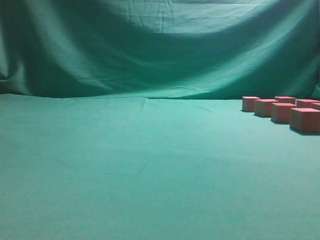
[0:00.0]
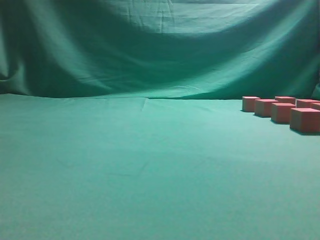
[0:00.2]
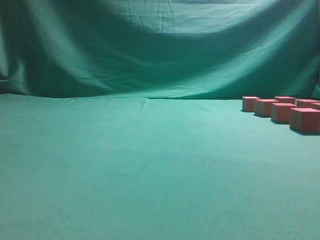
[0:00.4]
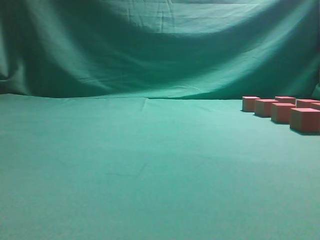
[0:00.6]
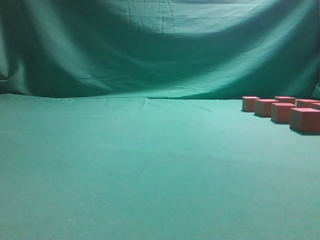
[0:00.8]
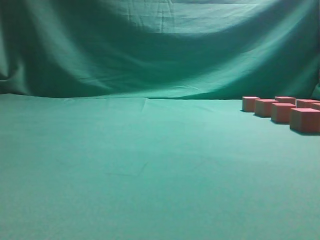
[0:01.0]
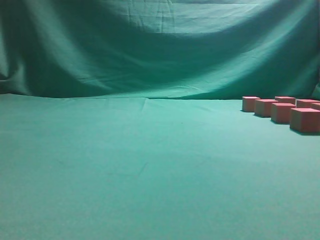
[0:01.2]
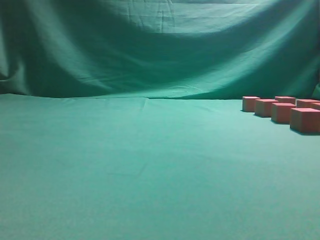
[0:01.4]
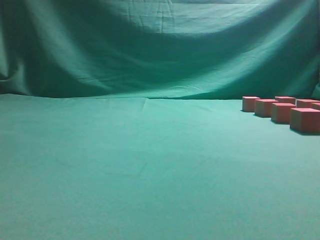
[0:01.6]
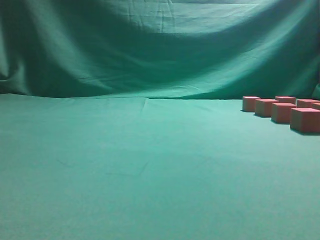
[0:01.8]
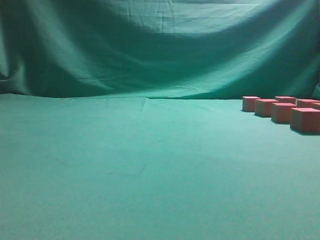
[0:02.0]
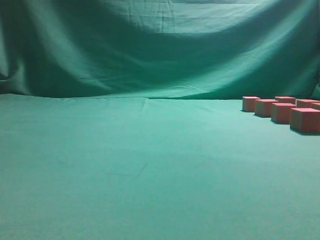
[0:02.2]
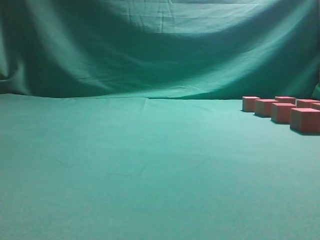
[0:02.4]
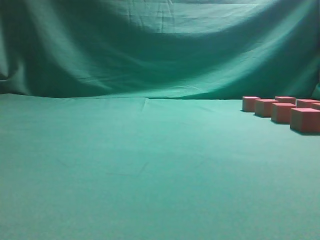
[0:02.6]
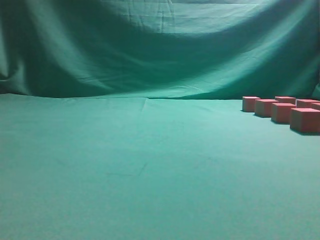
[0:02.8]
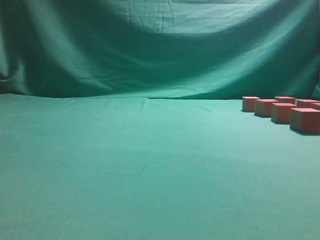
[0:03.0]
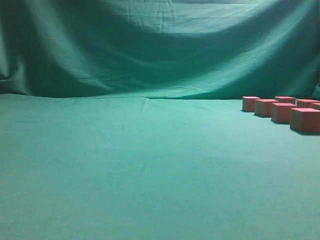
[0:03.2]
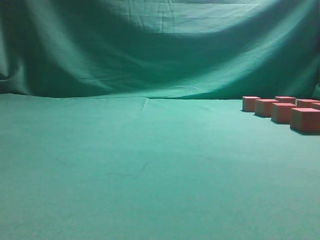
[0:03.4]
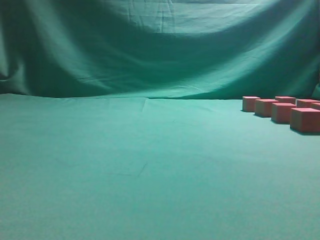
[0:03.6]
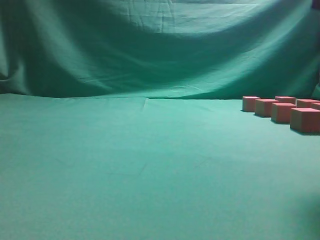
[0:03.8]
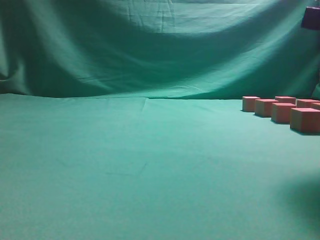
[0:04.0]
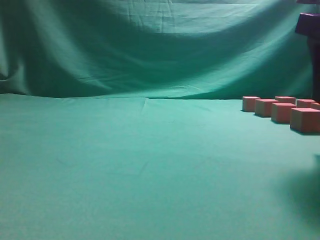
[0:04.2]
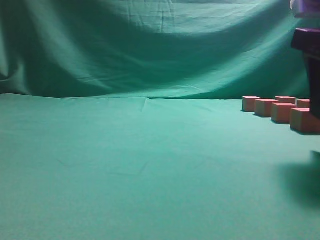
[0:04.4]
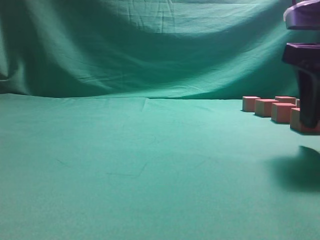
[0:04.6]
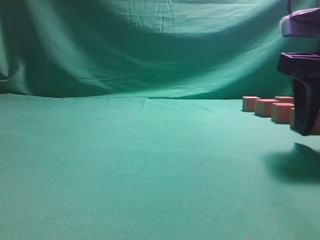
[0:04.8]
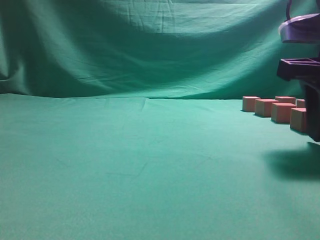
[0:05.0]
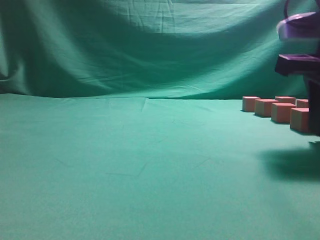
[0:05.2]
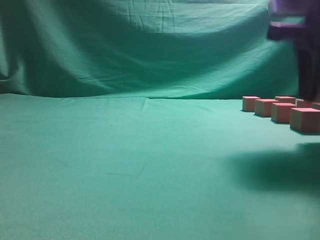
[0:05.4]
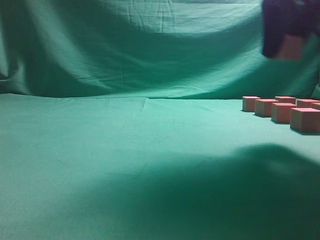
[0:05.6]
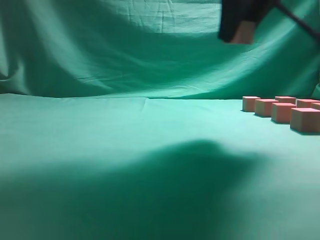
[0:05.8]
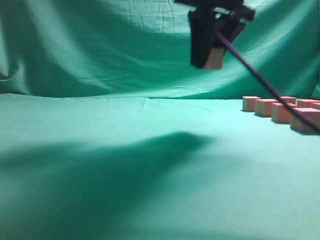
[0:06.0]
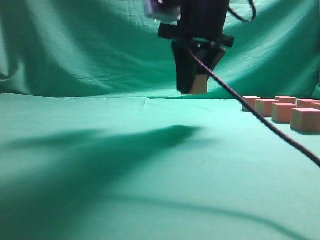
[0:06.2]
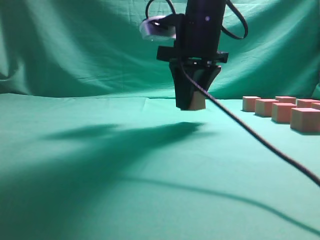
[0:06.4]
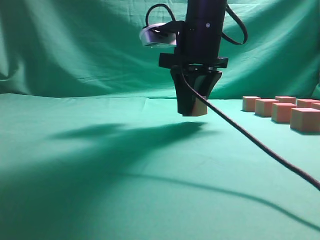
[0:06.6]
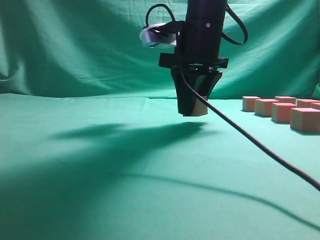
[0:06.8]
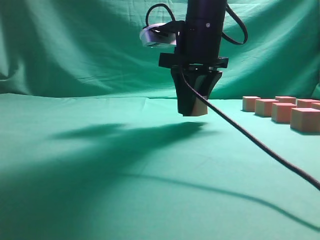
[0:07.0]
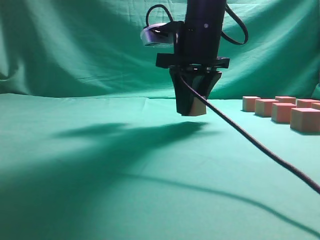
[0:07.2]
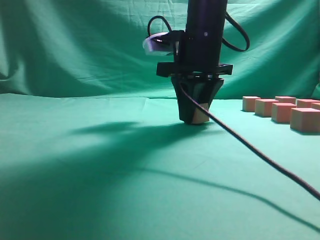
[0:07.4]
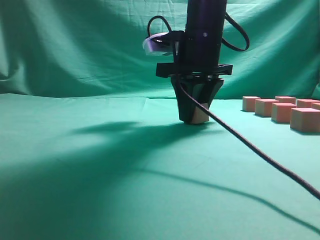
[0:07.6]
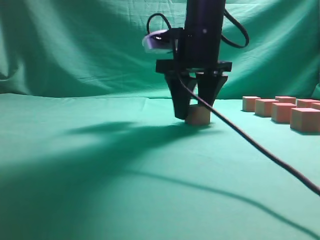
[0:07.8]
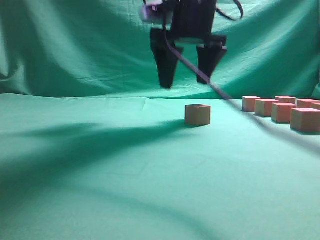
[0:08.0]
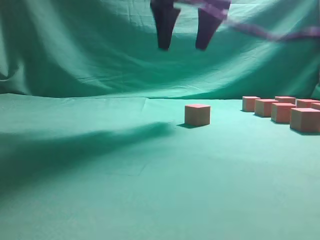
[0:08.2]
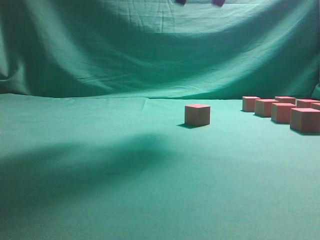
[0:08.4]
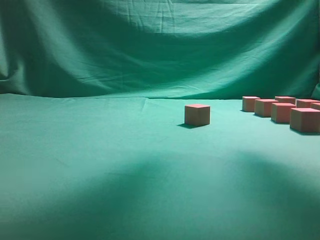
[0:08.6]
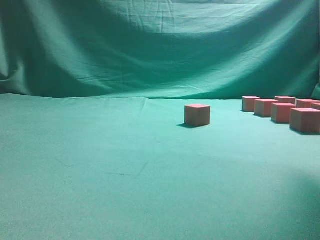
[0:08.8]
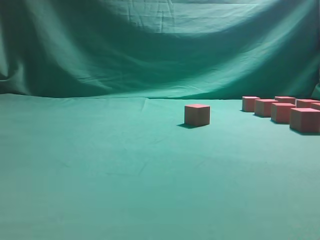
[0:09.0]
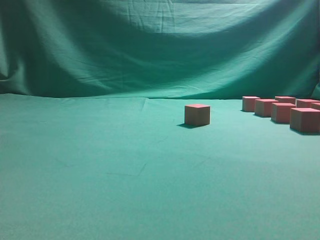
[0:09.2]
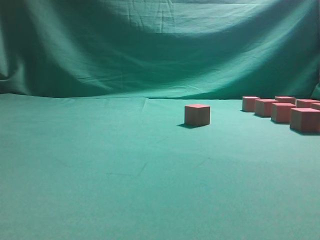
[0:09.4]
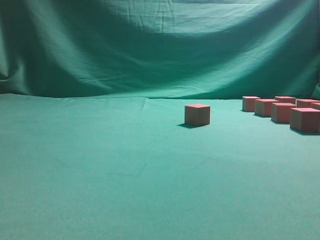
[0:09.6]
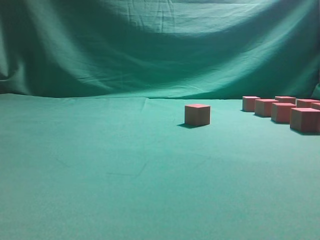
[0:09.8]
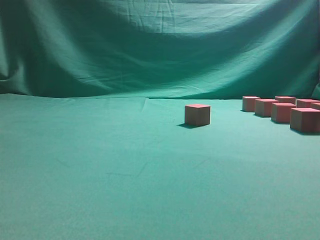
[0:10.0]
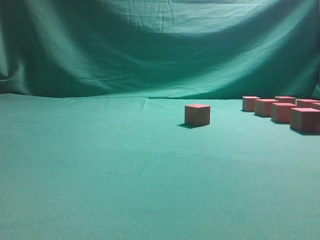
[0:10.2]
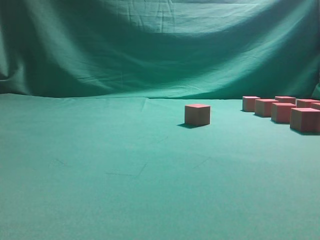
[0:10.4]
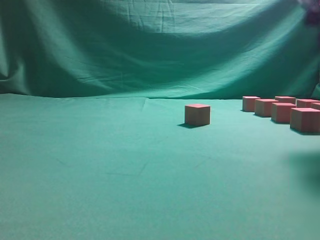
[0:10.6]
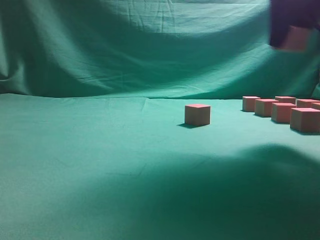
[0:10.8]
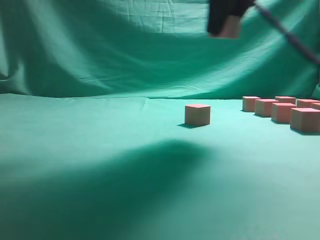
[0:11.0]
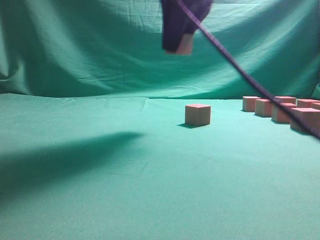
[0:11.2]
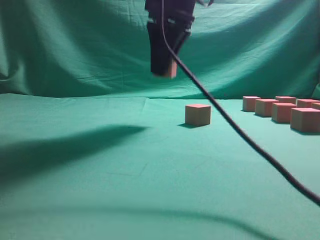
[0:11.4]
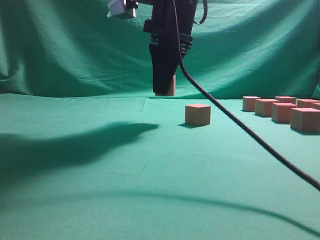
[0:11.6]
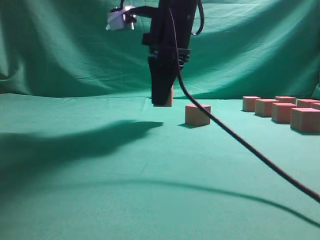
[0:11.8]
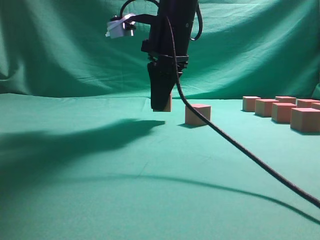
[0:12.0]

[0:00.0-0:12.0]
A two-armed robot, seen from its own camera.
Task of the whole recording: pick up the multiple cubes in two columns one by one and place them in another position on the table.
Step, 0:00.0 to 0:05.2: Pick up the block on the table.
Step, 0:05.4 to 0:08.0: Place the block at the correct position to assemble the letter S.
Step, 0:08.2 to 0:10.6: Pick up the block on the table.
0:03.0 to 0:04.4: The right gripper is displaced forward, downward and to the left by about 15 cm, and opens.
0:04.4 to 0:06.0: The right gripper travels to the left, forward and upward by approximately 15 cm, and closes.
0:06.0 to 0:07.6: The right gripper moves downward, roughly 10 cm.
0:07.6 to 0:09.0: The right gripper is displaced to the right, upward and backward by approximately 25 cm, and opens its fingers.
0:10.4 to 0:12.0: The right gripper moves to the left, approximately 25 cm.

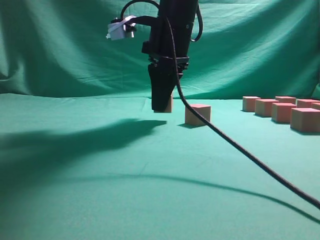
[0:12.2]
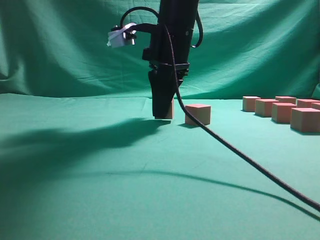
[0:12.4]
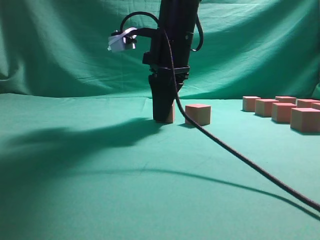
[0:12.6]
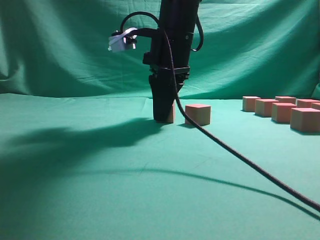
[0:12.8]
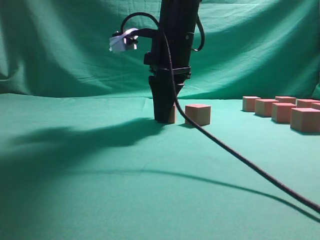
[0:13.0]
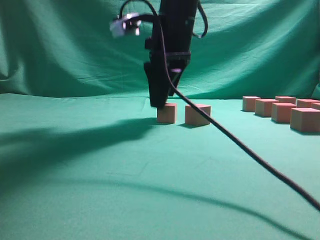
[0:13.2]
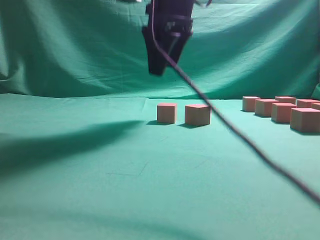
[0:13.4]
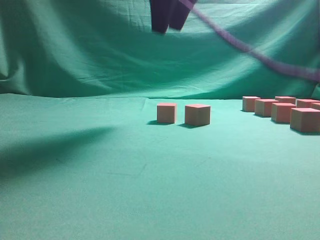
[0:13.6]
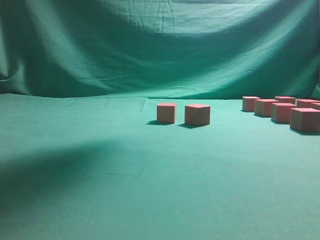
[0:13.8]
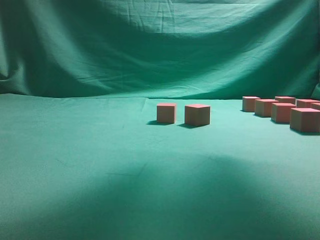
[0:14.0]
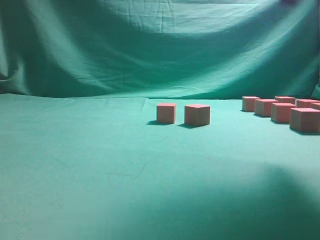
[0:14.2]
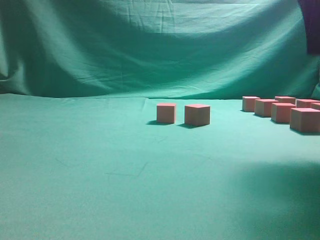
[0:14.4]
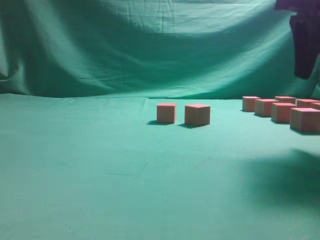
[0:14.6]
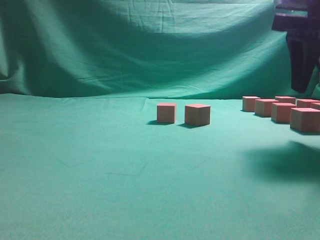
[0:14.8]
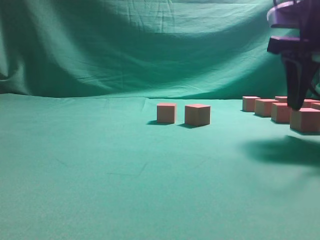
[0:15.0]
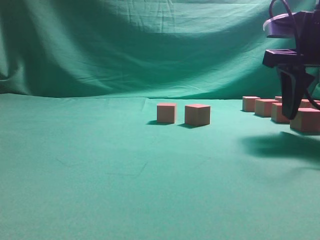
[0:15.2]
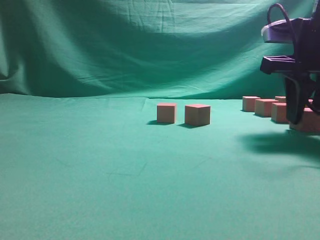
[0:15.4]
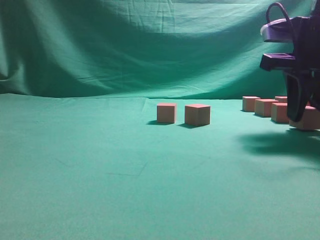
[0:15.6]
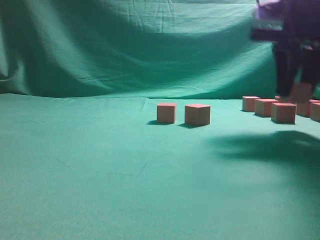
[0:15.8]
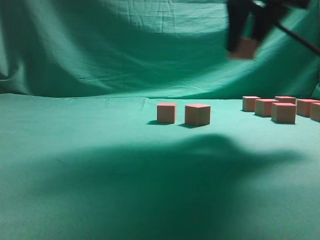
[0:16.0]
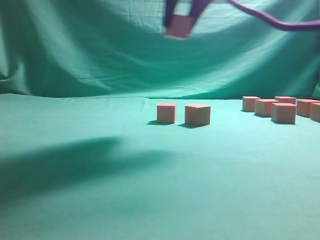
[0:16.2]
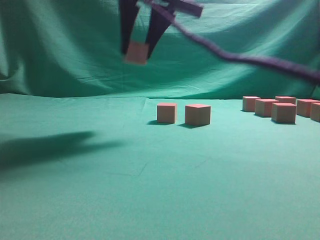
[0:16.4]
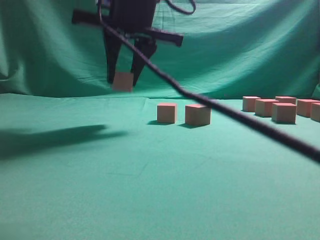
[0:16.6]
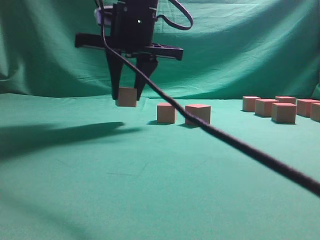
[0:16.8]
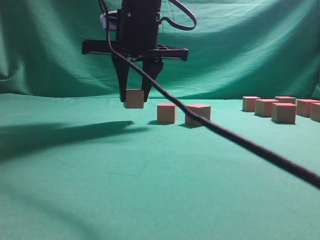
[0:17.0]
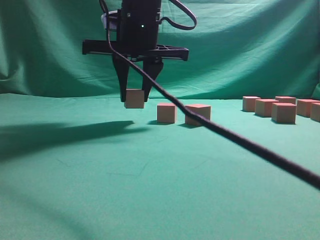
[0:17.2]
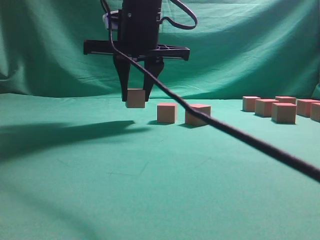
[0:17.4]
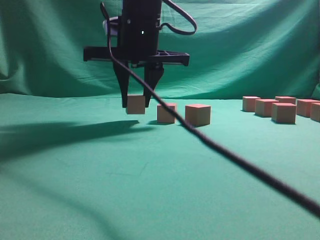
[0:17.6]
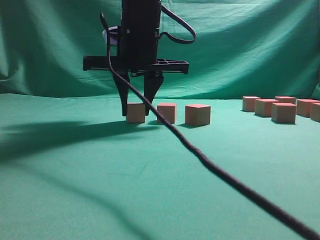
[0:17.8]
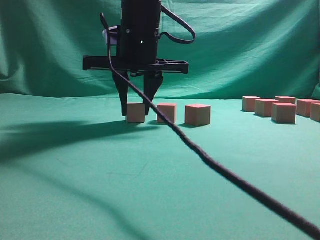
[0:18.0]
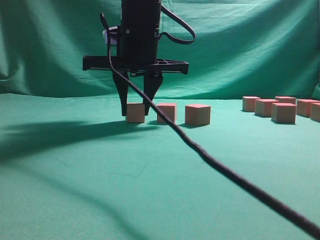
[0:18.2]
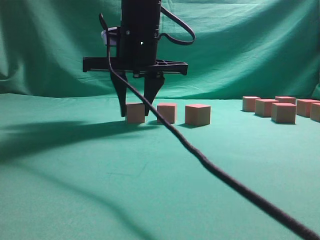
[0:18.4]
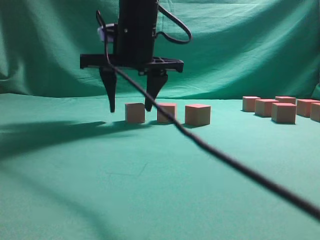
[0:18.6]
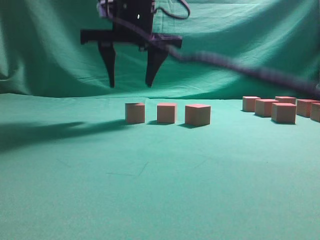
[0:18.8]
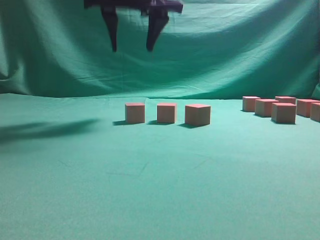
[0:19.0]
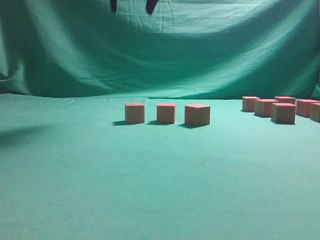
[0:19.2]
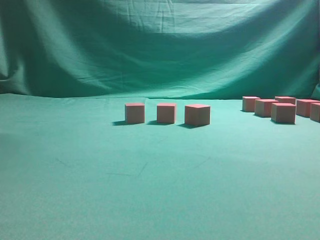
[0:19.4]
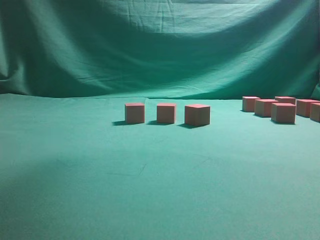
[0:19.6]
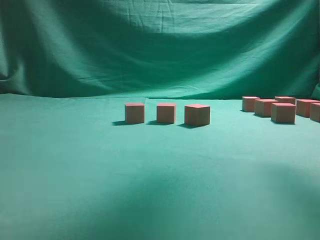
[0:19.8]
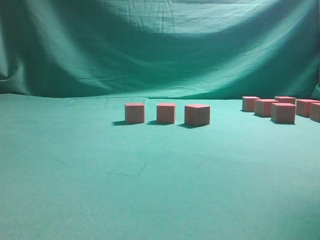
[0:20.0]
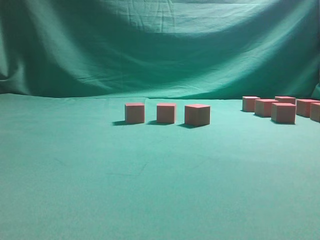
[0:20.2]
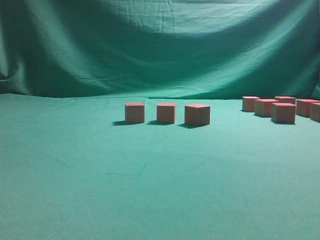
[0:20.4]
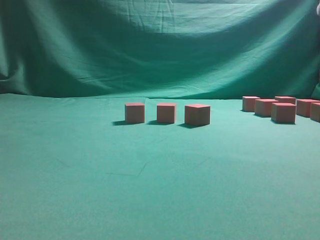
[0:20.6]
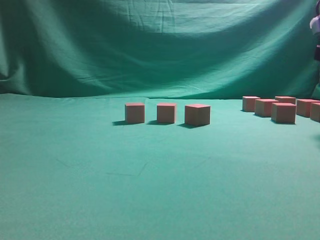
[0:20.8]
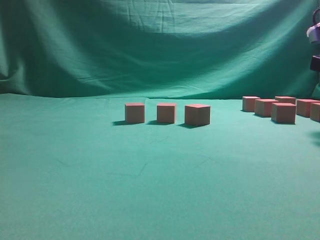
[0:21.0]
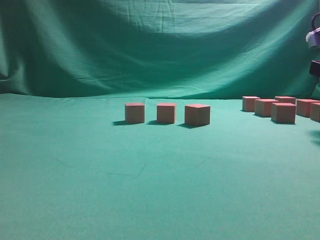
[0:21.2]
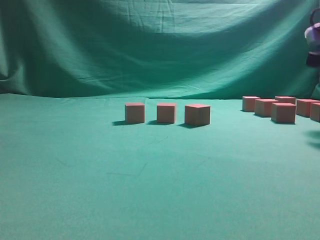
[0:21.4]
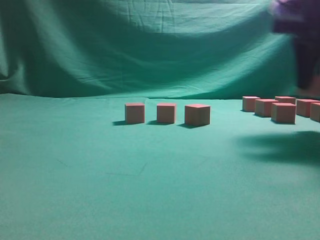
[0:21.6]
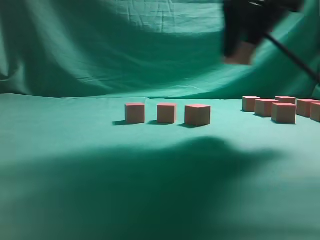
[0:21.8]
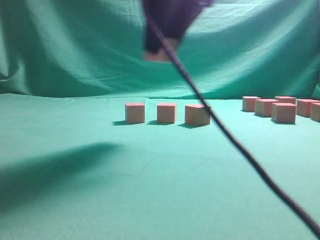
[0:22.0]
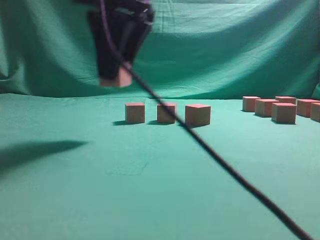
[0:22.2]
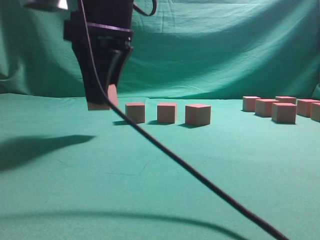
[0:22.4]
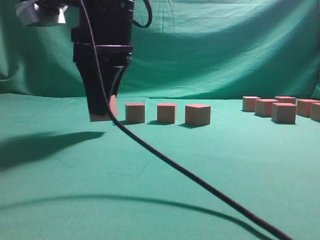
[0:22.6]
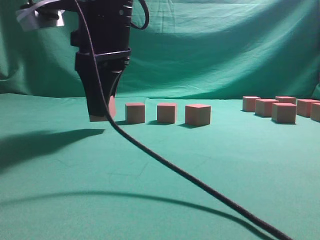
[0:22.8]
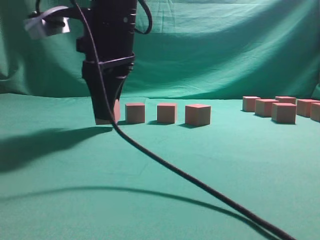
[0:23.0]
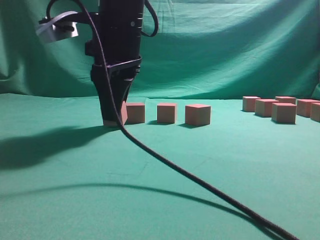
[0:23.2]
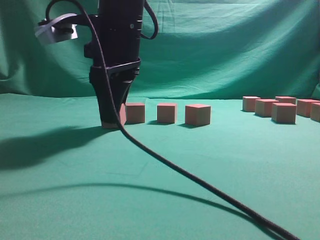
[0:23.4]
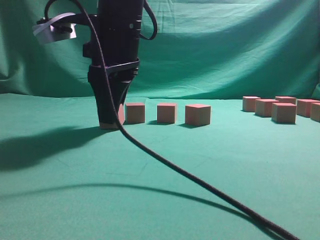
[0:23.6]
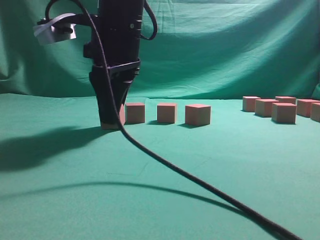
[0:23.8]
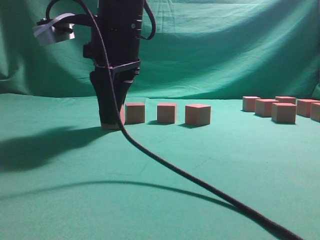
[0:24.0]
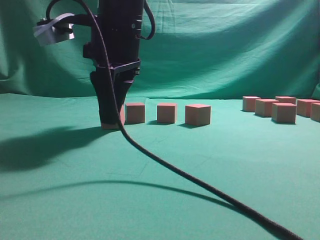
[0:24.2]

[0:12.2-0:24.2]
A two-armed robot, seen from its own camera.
Task of the whole recording: pick up the multiple cubes in two columns one by one and place them in another position on the table.
Step, 0:13.6 to 0:15.6: Pick up the block on the table.
Step, 0:15.8 to 0:18.8: Place the block at the correct position to assemble the letter S.
Step, 0:19.0 to 0:21.4: Pick up the block on the table.
0:12.2 to 0:13.8: The right gripper shifts roughly 20 cm upward, and opens its fingers.
0:13.8 to 0:15.2: The right gripper shifts some 25 cm downward and to the right.
0:15.2 to 0:16.6: The right gripper shifts about 25 cm to the left, and closes.
0:16.6 to 0:18.2: The right gripper shifts some 5 cm downward.
0:18.2 to 0:19.8: The right gripper shifts approximately 30 cm upward and to the right, and opens.
0:19.8 to 0:21.2: The right gripper moves downward and to the right, approximately 25 cm.
0:21.2 to 0:22.6: The right gripper is displaced to the left by roughly 35 cm.
0:22.6 to 0:24.2: The grippers make only small movements.
